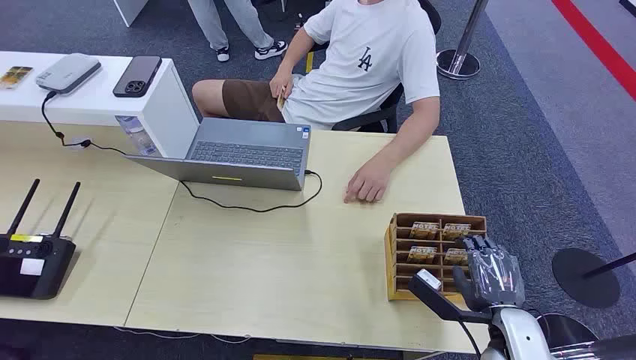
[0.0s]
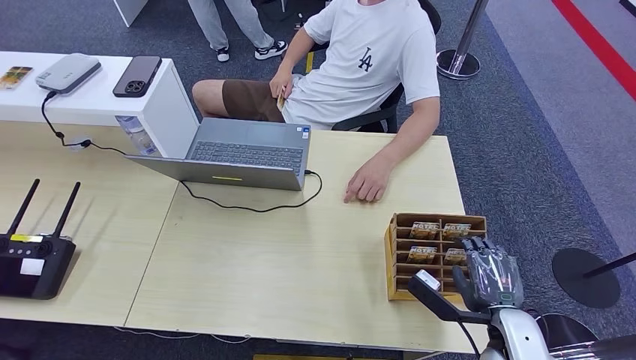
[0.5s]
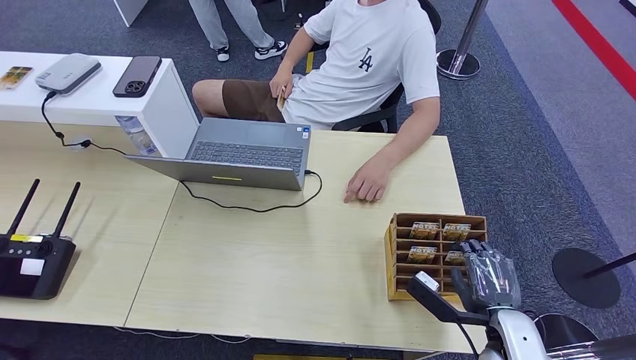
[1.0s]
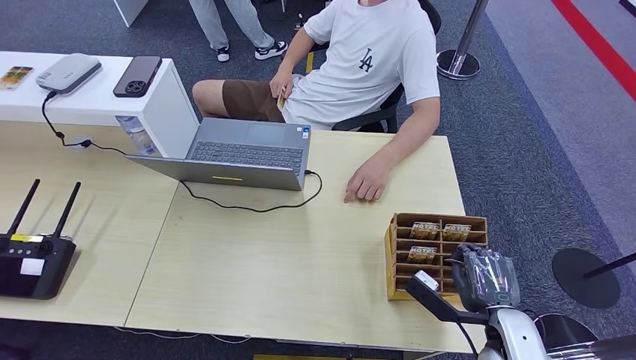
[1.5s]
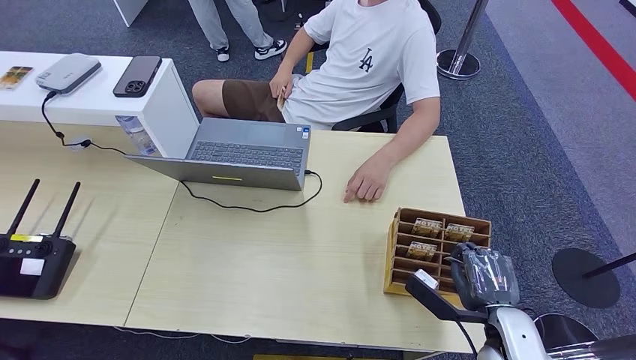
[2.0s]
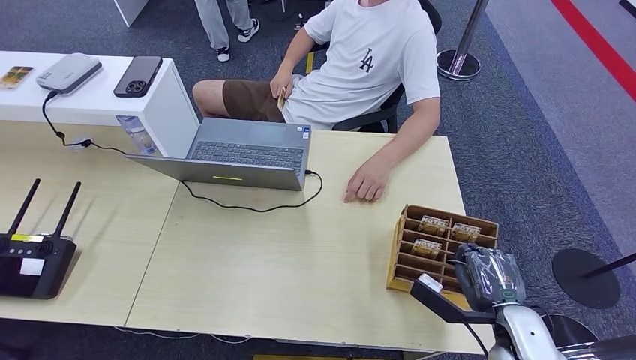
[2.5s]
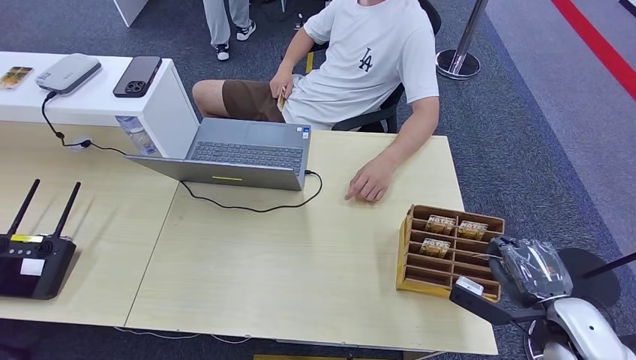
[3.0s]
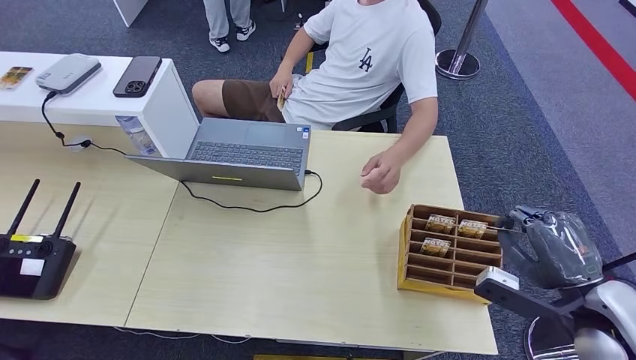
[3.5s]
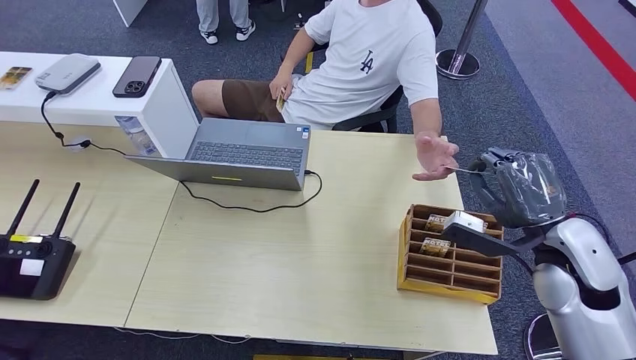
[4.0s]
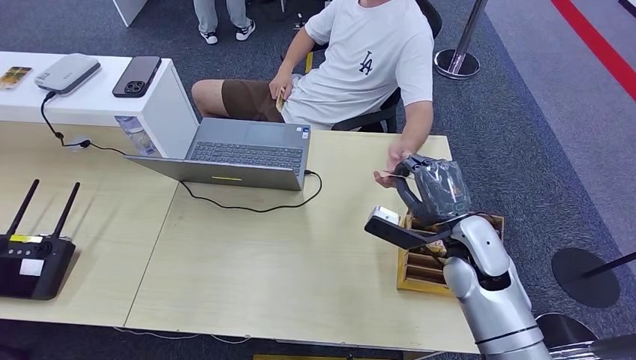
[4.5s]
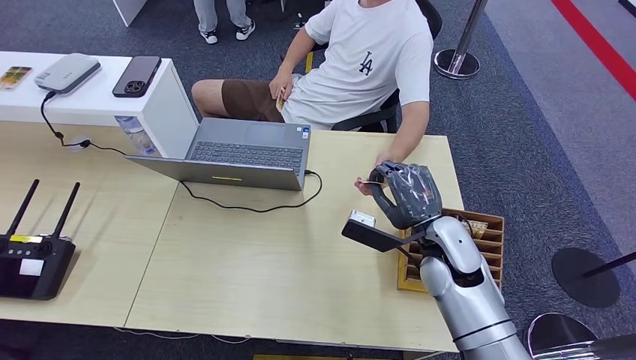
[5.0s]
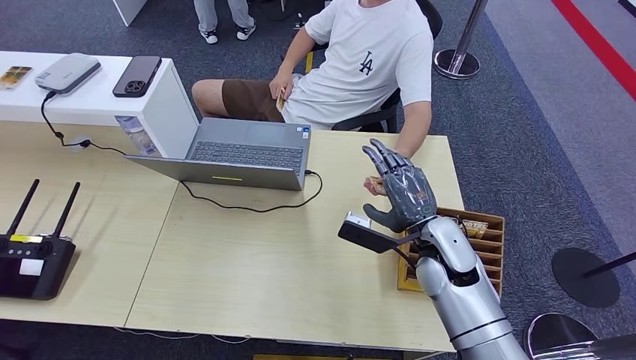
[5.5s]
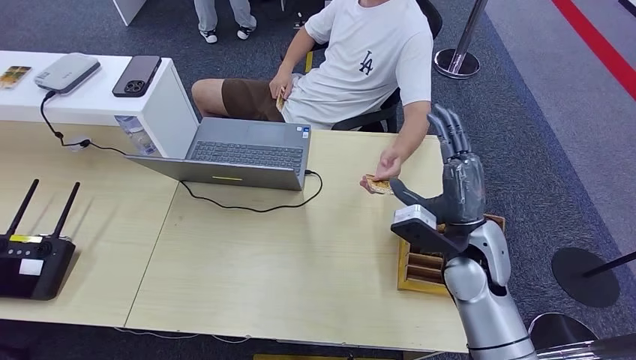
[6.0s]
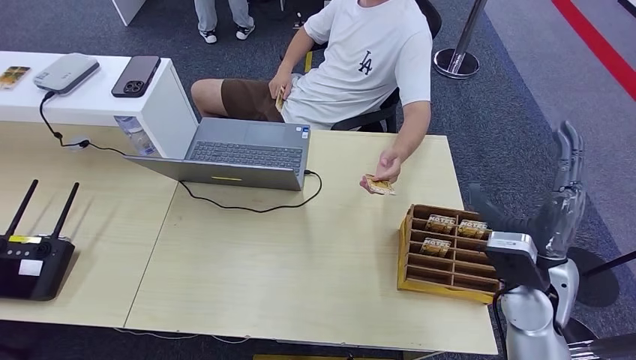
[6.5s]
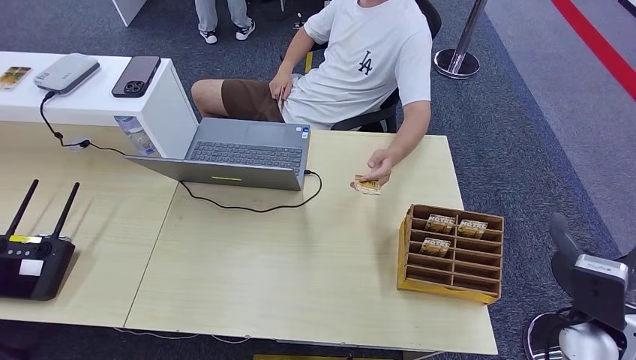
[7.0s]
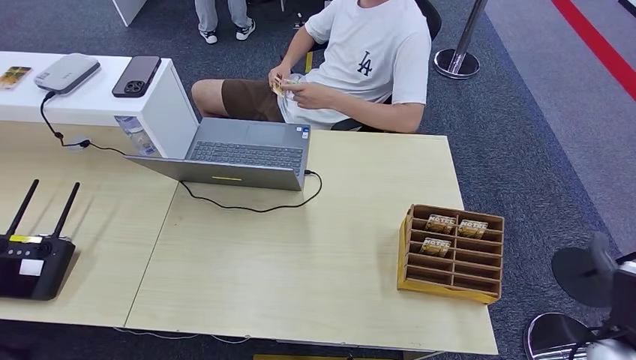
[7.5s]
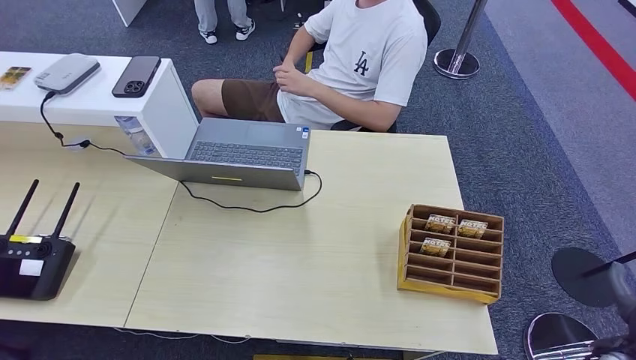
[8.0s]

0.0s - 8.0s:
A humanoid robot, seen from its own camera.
Step, 0.0s - 3.5s: Pick up the room card from the card holder.
Step, 4.0s - 8.0s: Hand the room card to the target.
2.0s - 4.0s: The right hand moves upward and forward, about 15 cm.
4.0s - 6.0s: The right hand moves to the left, roughly 10 cm.
6.0s - 8.0s: The right hand shifts roughly 30 cm to the right, backward and downward.
